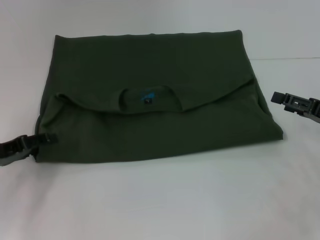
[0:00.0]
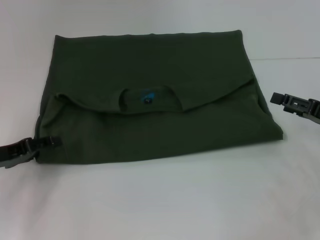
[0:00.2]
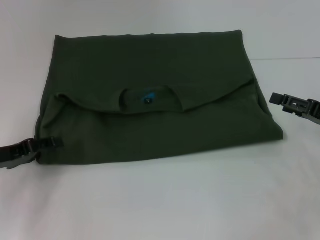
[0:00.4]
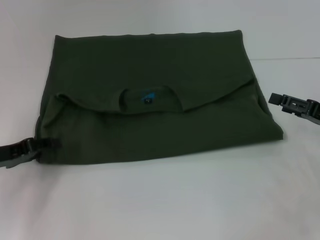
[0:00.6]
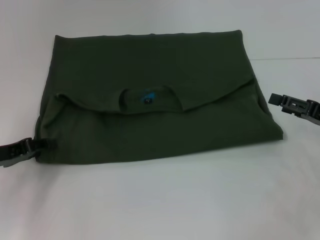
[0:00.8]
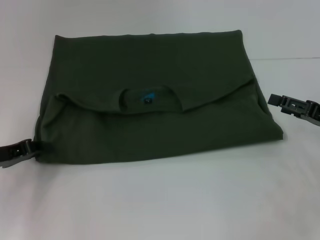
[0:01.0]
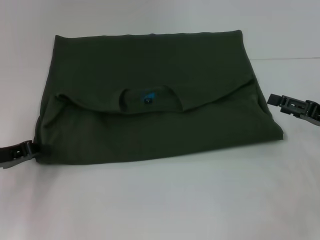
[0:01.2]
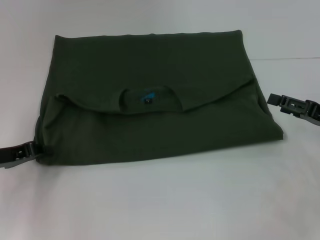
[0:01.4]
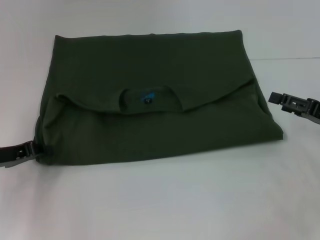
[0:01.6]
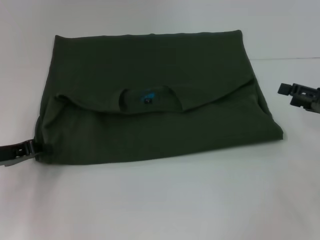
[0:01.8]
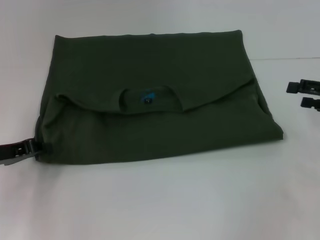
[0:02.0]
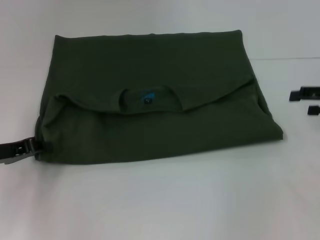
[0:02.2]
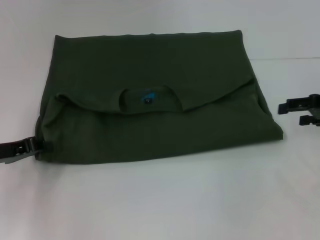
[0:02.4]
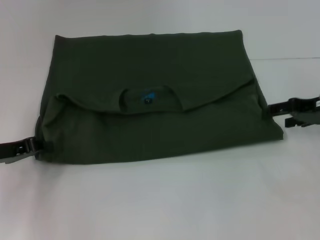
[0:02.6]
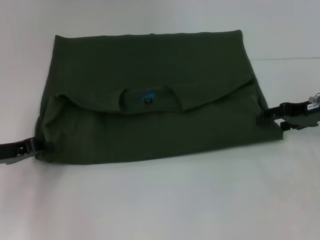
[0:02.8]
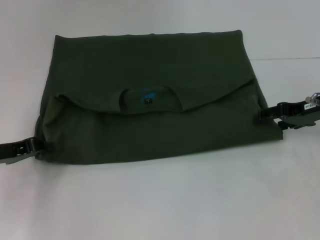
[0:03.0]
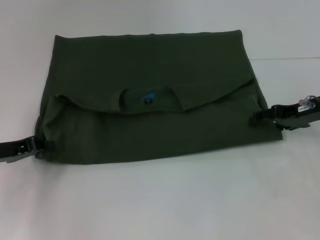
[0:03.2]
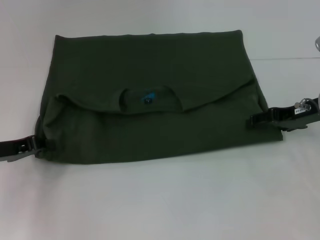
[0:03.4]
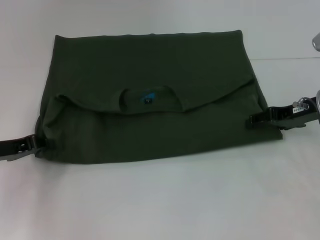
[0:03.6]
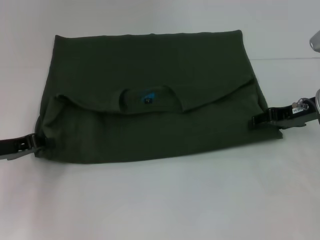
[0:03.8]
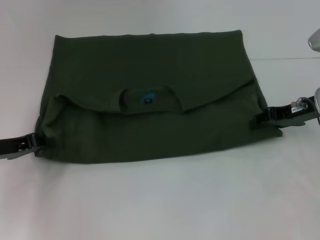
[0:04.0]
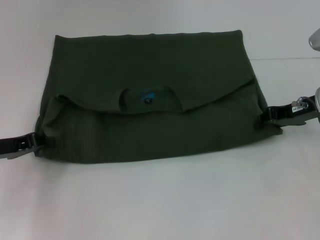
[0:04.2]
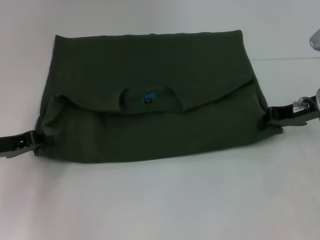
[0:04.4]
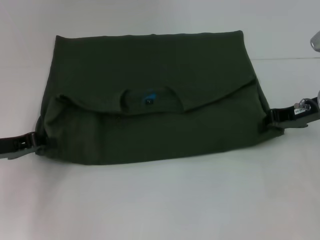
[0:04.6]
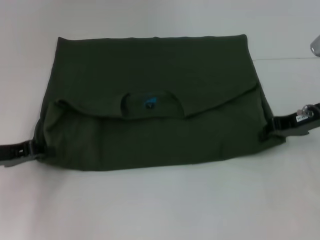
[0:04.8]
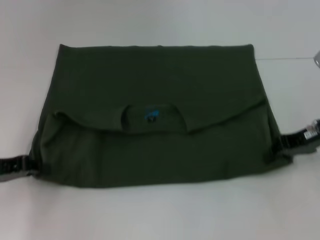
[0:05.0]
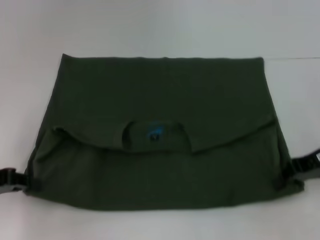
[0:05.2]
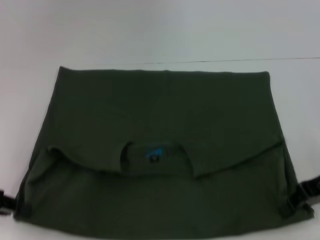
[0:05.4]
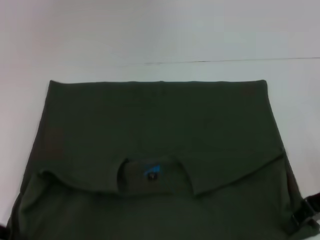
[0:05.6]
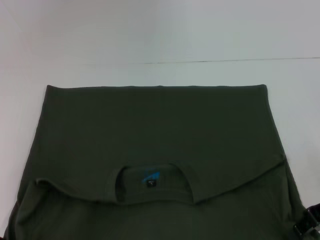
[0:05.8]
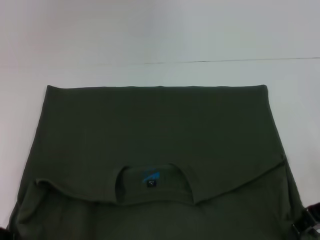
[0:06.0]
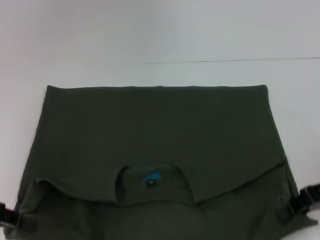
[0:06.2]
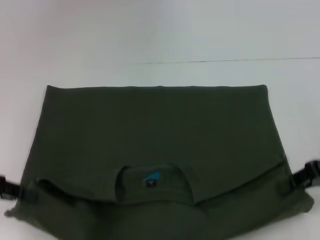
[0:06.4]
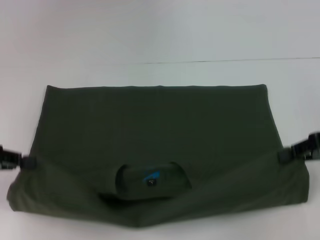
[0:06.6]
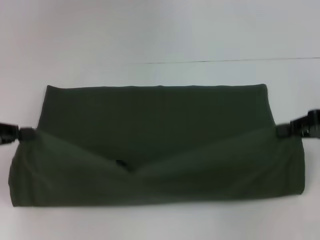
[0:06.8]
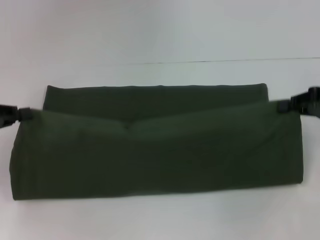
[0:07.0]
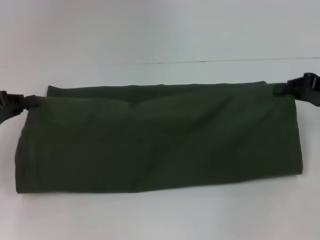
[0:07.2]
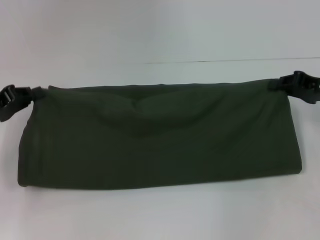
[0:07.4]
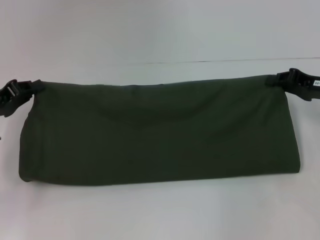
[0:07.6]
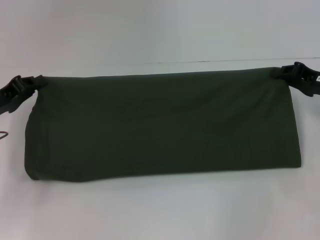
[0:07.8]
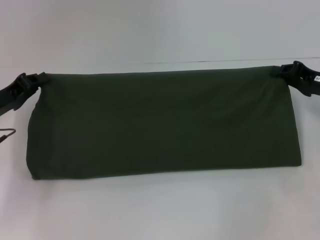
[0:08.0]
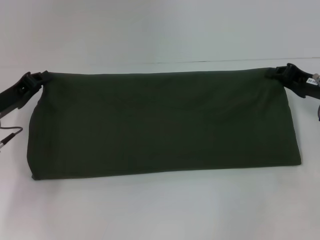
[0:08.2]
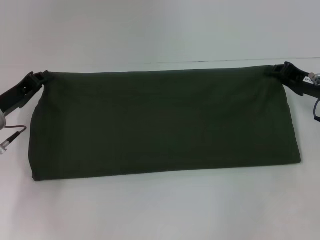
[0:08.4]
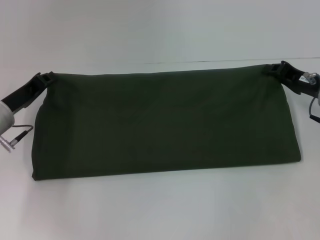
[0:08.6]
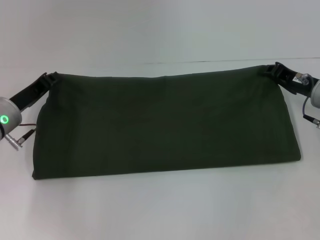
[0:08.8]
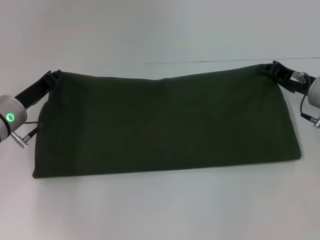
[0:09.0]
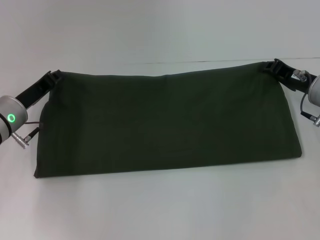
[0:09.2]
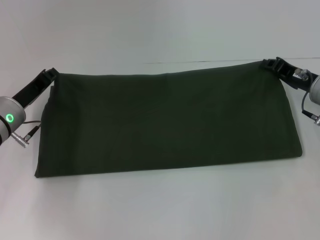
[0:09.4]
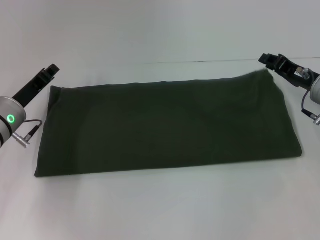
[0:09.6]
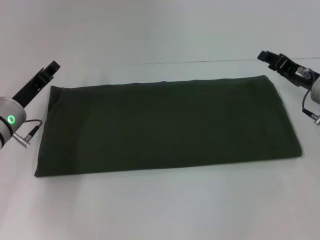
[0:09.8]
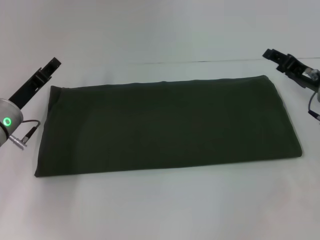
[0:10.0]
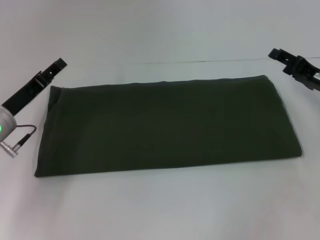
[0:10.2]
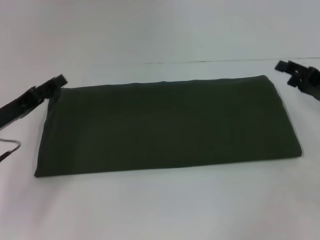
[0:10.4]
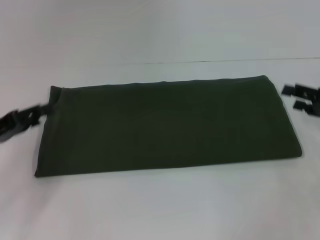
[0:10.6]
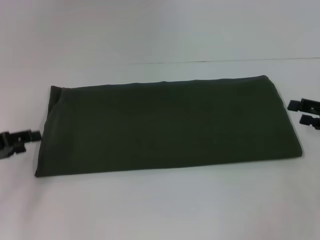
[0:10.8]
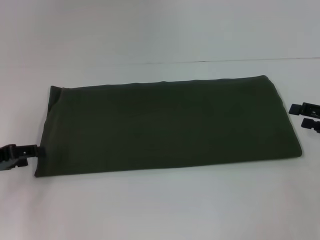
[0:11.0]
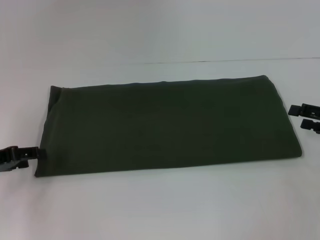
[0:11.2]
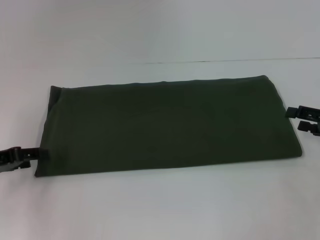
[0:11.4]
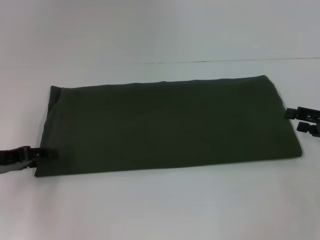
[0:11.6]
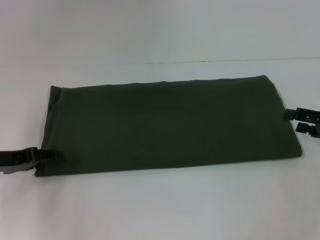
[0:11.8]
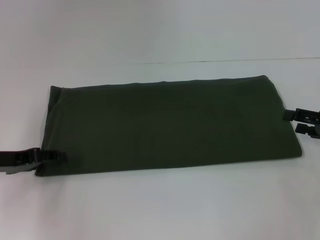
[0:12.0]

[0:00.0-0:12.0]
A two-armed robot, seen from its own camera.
Step, 0:00.0 to 0:05.6: Pull the clothes with your left hand.
Step, 0:00.0 to 0:05.6: Pull the clothes with your right hand.
Step, 0:05.8 to 0:09.6: Fold the clothes with your right hand.
0:00.0 to 0:01.6: The left gripper closes its fingers.
0:01.6 to 0:03.0: The right gripper moves forward, approximately 5 cm.
0:03.0 to 0:04.4: The right gripper closes its fingers.
0:04.4 to 0:06.0: Both grippers travel together backward, about 10 cm.
0:06.0 to 0:07.6: The two grippers go some 10 cm forward.
0:07.6 to 0:09.0: The right gripper ends up approximately 5 cm from where it was, while the left gripper is displaced to the right by about 5 cm.
0:09.0 to 0:10.4: The right gripper heads to the right, covering roughly 5 cm, and opens up, while the left gripper changes place by roughly 5 cm, and opens its fingers.
0:10.4 to 0:12.0: The right gripper moves about 5 cm.

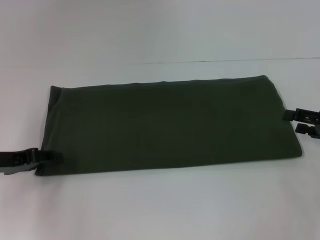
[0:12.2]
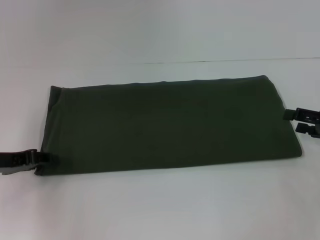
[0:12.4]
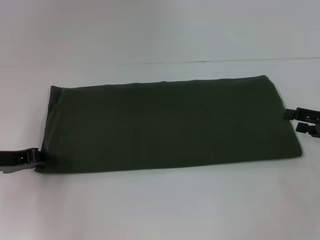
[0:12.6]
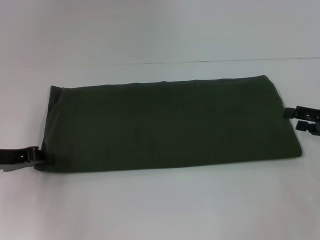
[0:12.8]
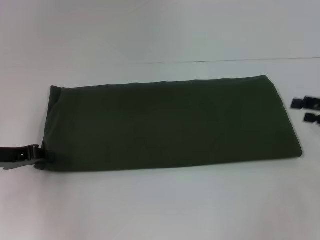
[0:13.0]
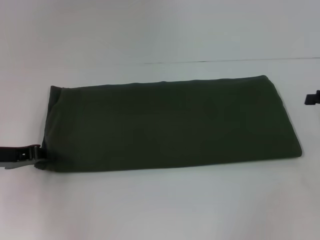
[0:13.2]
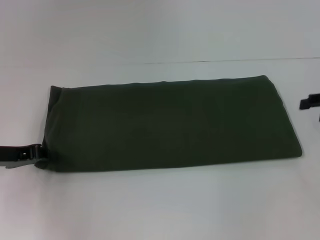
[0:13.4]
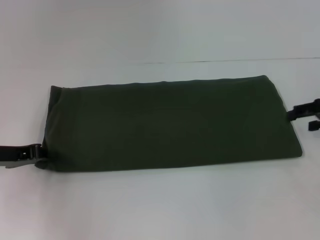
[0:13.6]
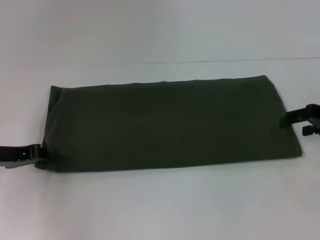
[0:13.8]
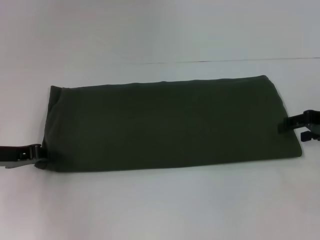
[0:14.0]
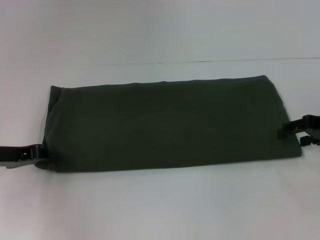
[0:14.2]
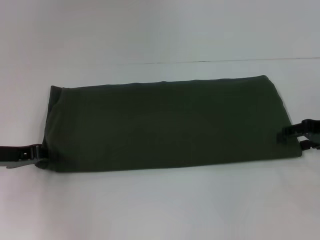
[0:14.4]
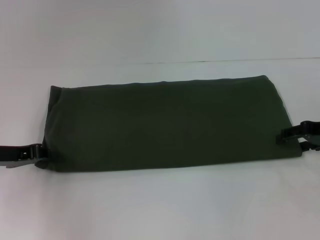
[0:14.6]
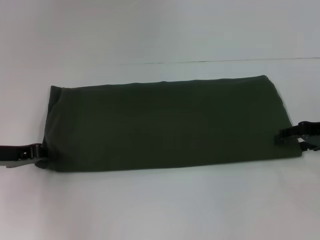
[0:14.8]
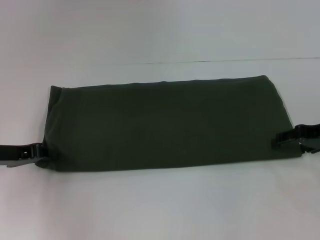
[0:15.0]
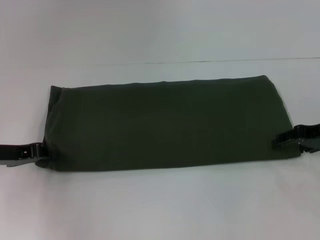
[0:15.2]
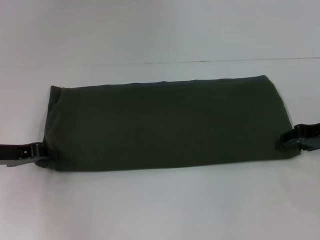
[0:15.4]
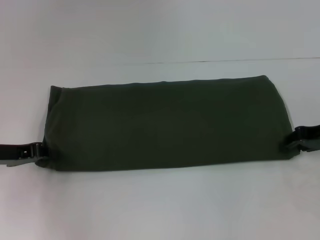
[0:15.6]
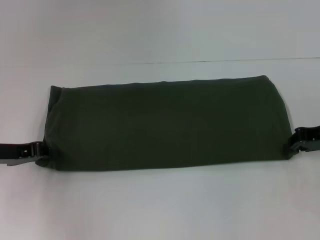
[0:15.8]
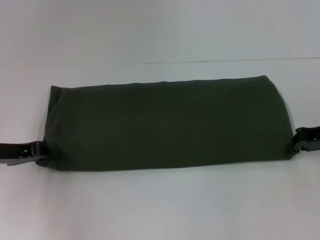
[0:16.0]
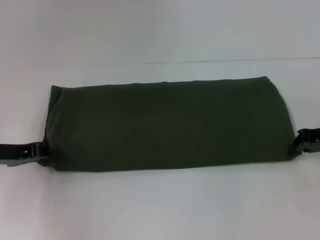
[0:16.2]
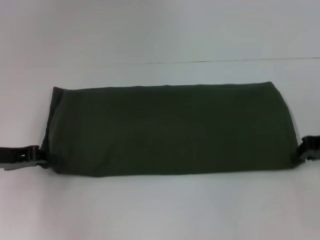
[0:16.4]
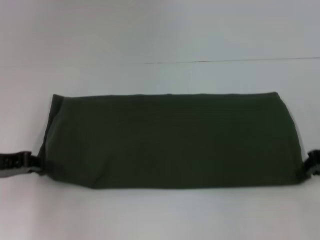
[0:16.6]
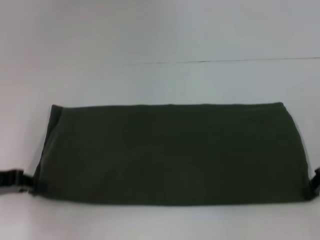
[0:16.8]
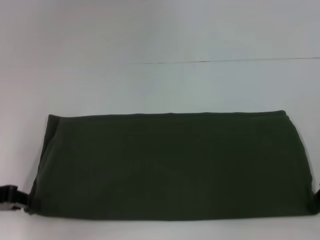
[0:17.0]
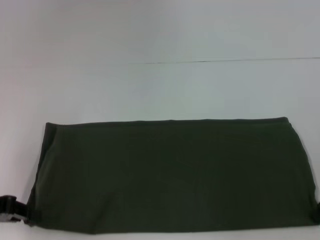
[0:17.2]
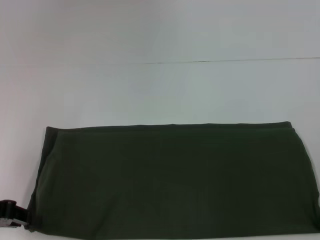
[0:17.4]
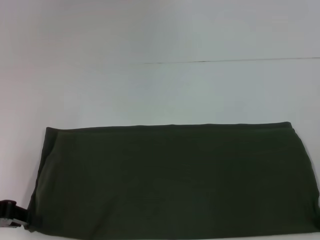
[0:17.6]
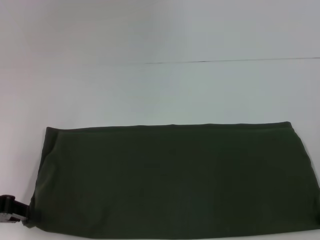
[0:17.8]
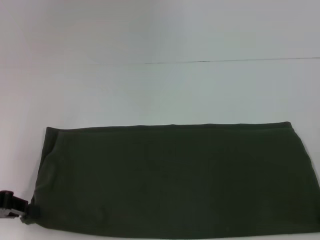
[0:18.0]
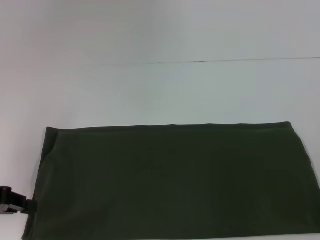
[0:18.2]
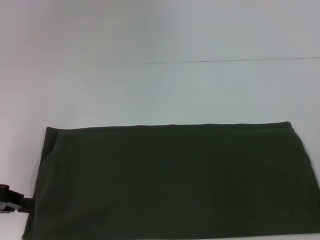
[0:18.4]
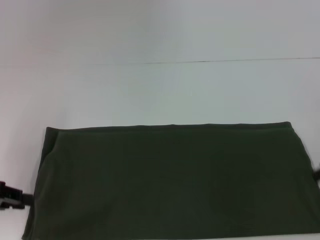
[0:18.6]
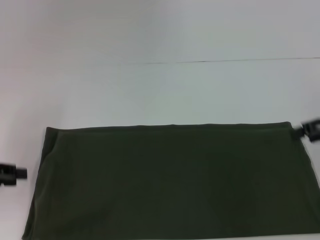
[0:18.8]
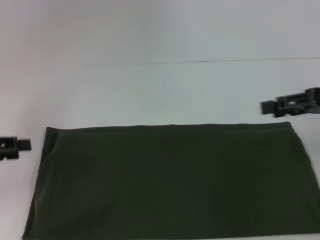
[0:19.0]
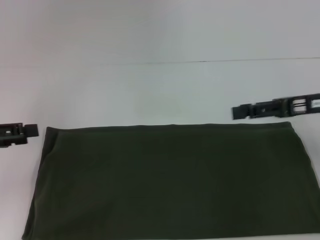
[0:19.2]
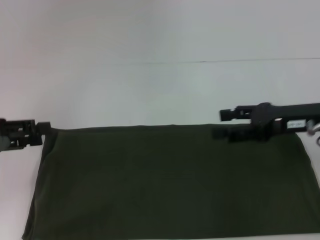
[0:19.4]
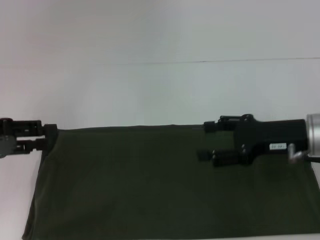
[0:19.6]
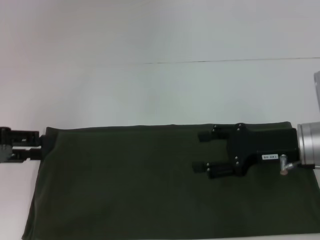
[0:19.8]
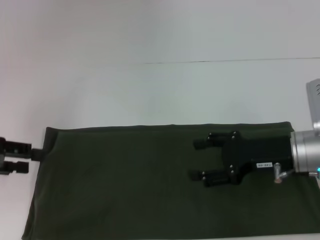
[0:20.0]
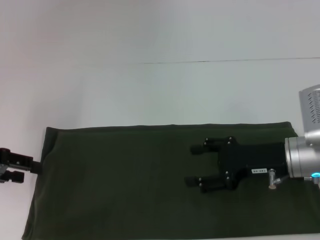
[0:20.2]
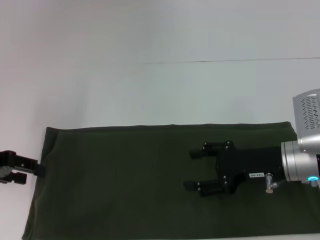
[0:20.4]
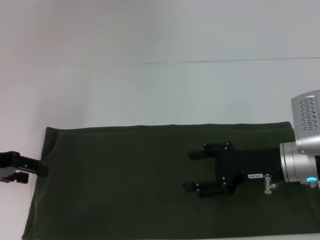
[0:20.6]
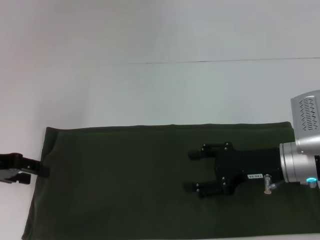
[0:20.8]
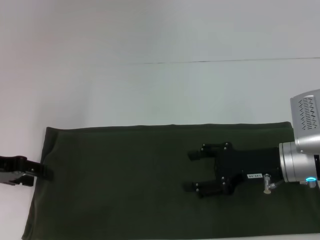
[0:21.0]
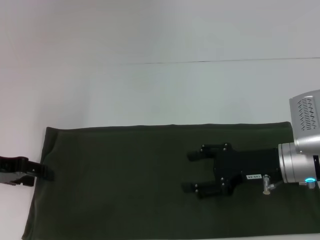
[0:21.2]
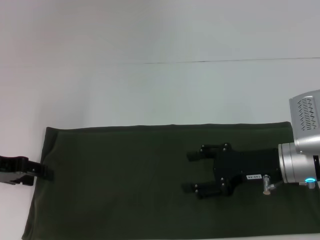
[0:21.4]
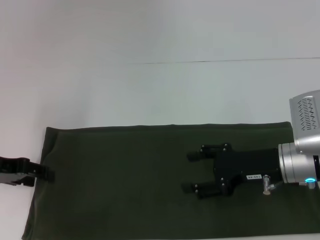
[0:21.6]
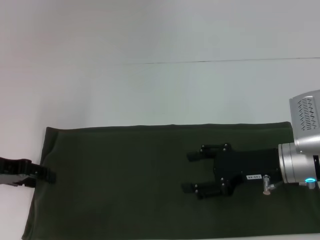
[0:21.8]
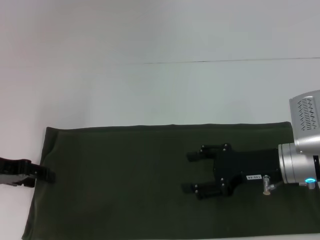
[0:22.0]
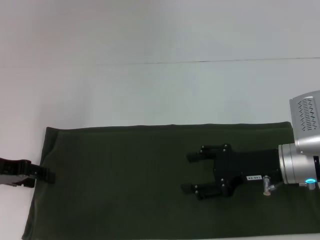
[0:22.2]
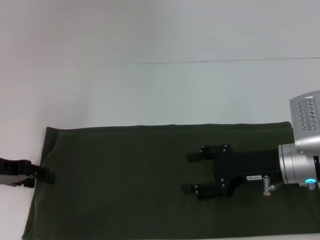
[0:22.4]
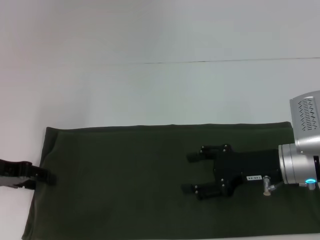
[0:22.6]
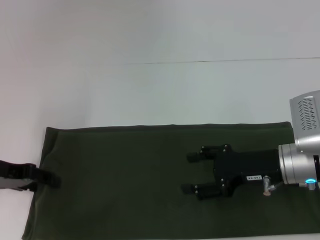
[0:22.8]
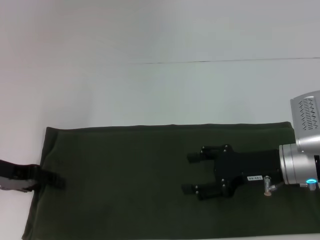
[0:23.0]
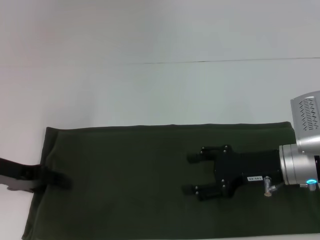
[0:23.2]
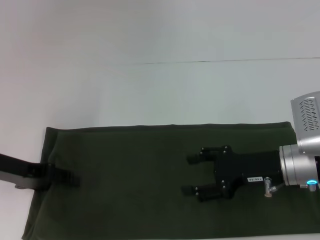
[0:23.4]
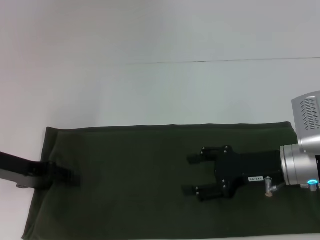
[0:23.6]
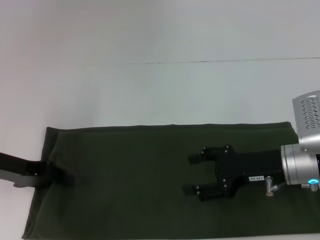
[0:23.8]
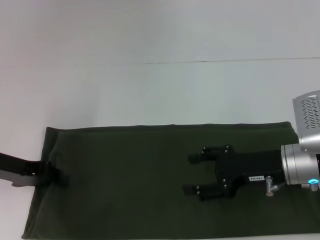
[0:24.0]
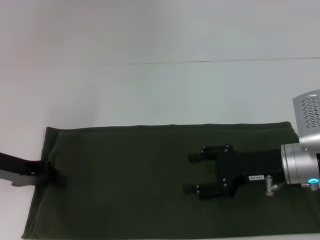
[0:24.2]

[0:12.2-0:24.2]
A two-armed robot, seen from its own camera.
0:12.2 to 0:13.8: The left gripper closes.
0:13.8 to 0:15.2: The grippers move only a little.
0:15.2 to 0:16.6: The right gripper closes its fingers.
0:18.2 to 0:19.8: The left gripper opens up. Meanwhile the right gripper is displaced to the left by approximately 10 cm, and opens up.
0:21.2 to 0:22.6: Neither gripper changes place.
0:22.6 to 0:24.2: The left gripper closes up.
